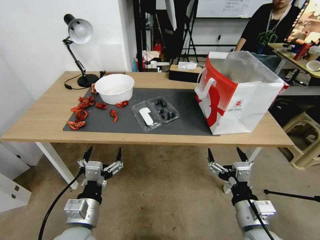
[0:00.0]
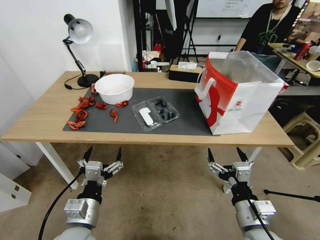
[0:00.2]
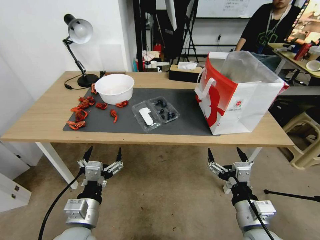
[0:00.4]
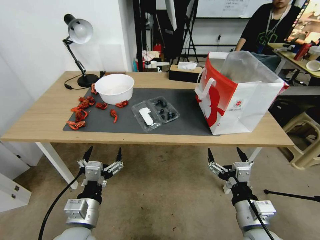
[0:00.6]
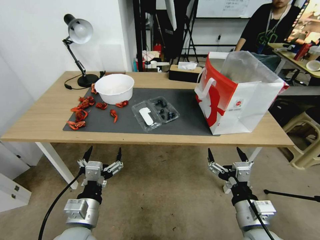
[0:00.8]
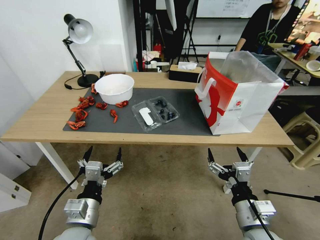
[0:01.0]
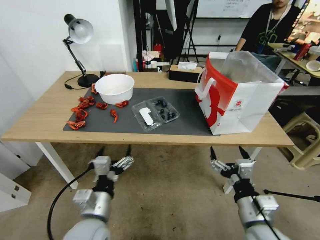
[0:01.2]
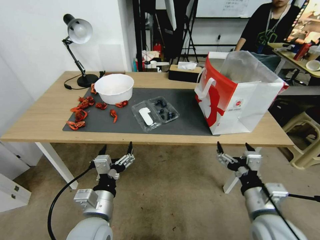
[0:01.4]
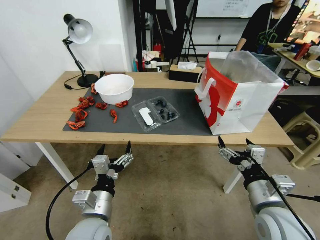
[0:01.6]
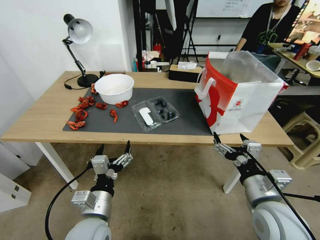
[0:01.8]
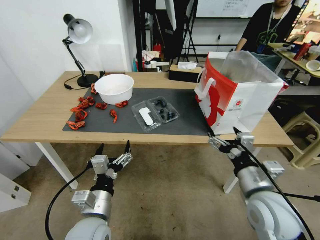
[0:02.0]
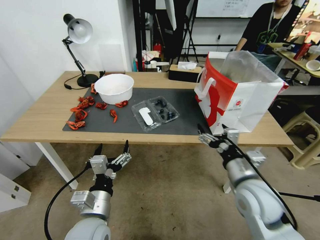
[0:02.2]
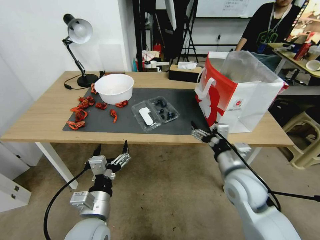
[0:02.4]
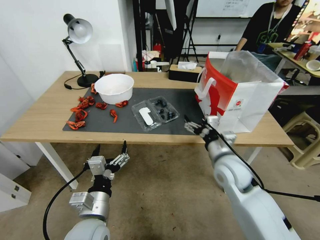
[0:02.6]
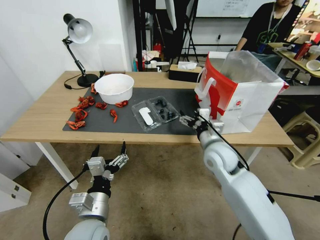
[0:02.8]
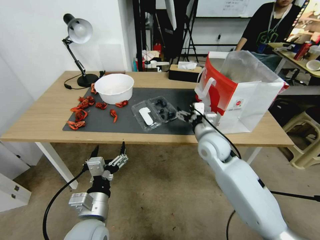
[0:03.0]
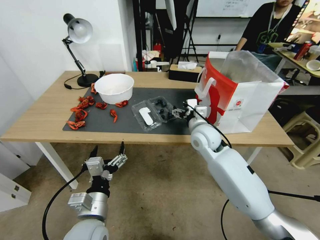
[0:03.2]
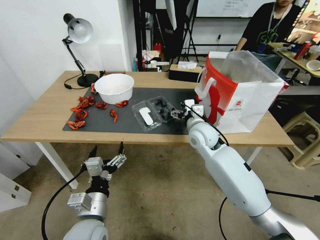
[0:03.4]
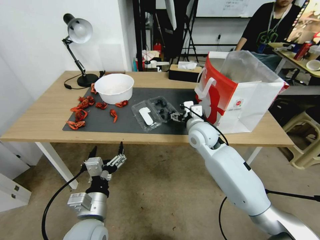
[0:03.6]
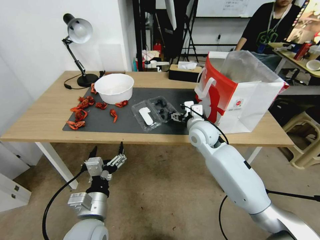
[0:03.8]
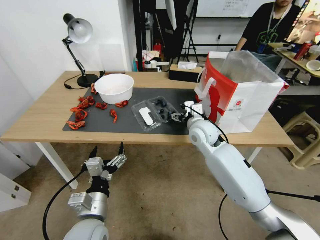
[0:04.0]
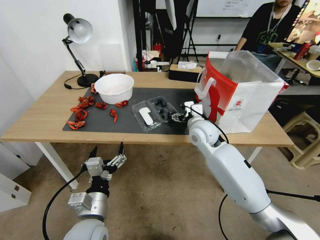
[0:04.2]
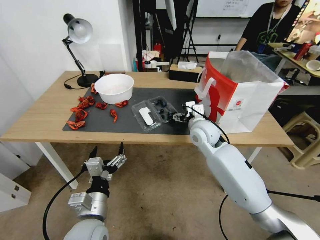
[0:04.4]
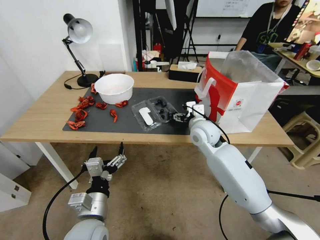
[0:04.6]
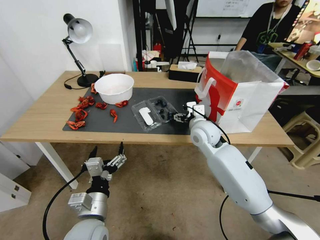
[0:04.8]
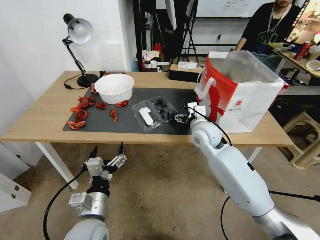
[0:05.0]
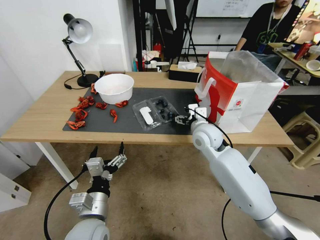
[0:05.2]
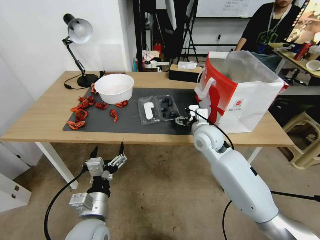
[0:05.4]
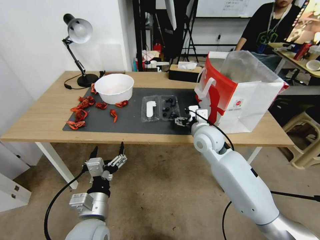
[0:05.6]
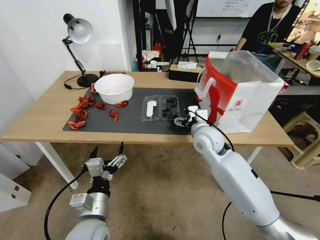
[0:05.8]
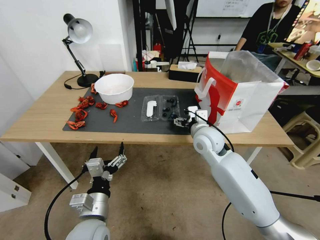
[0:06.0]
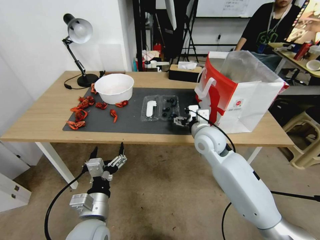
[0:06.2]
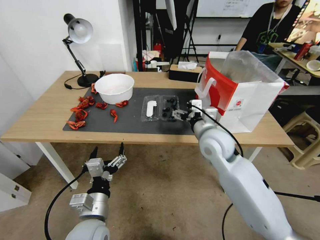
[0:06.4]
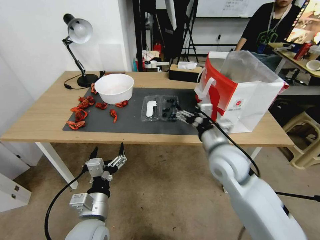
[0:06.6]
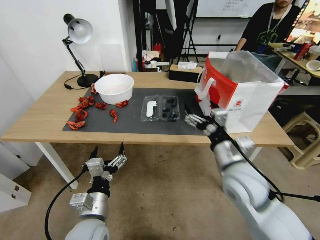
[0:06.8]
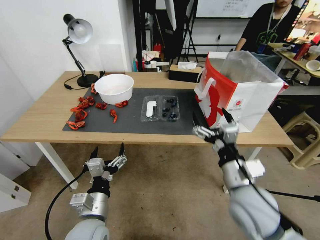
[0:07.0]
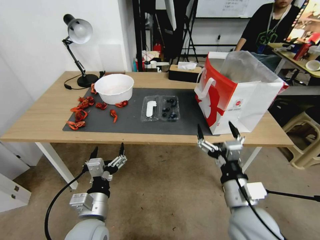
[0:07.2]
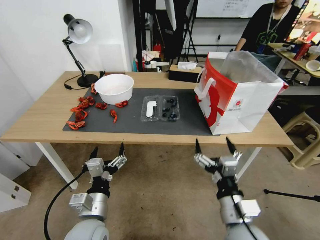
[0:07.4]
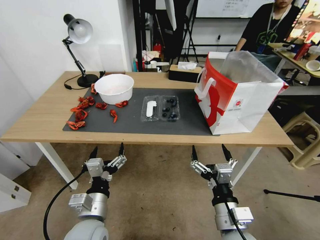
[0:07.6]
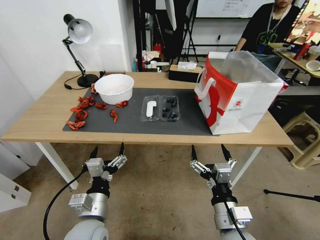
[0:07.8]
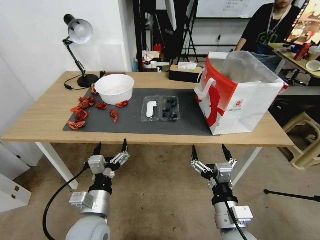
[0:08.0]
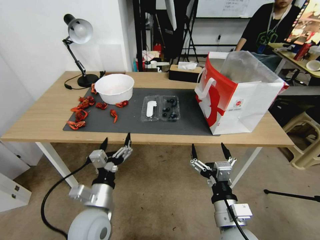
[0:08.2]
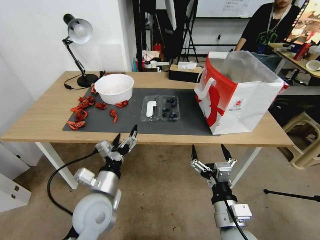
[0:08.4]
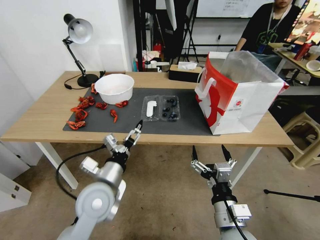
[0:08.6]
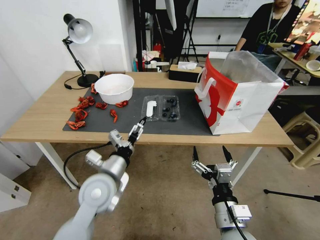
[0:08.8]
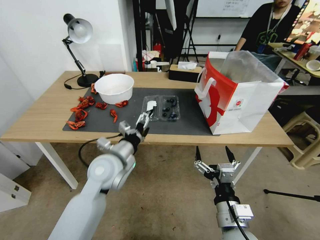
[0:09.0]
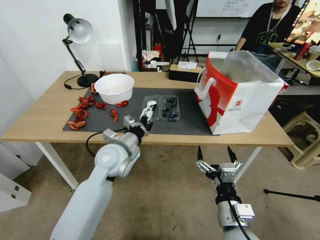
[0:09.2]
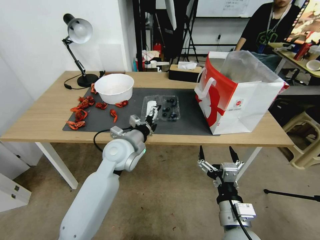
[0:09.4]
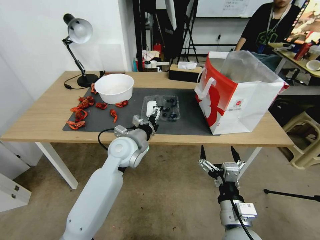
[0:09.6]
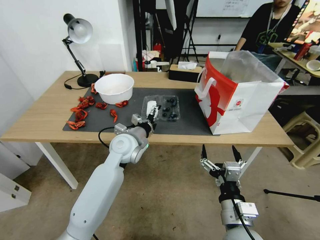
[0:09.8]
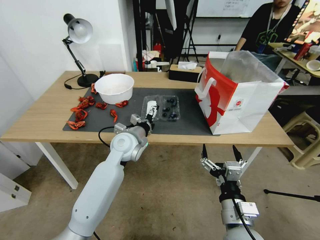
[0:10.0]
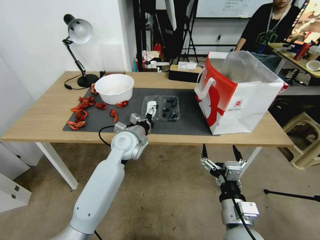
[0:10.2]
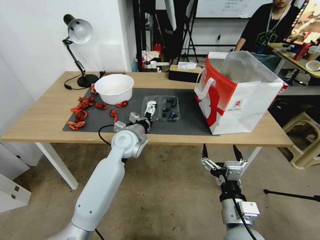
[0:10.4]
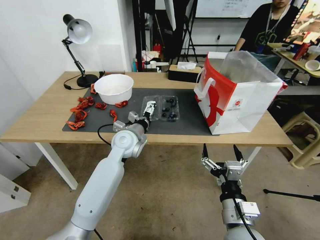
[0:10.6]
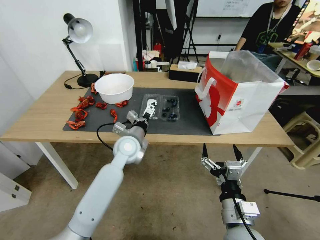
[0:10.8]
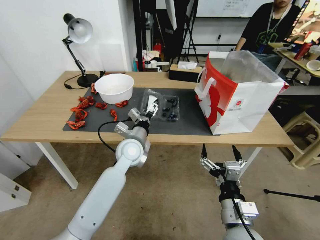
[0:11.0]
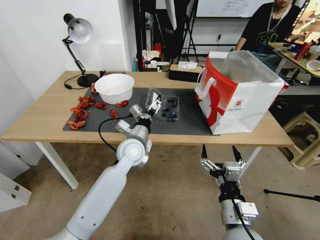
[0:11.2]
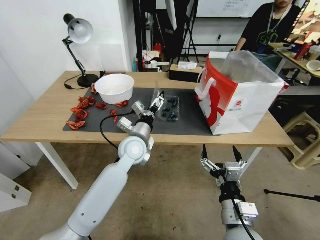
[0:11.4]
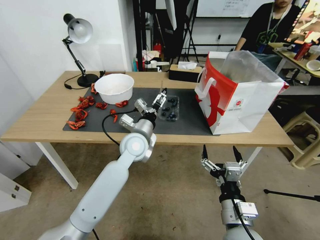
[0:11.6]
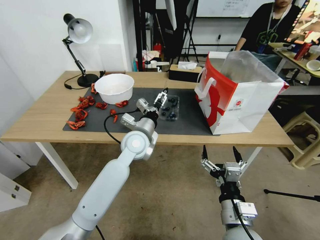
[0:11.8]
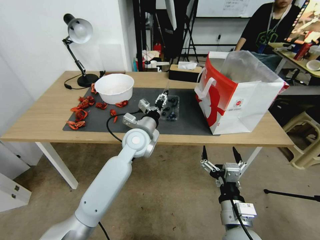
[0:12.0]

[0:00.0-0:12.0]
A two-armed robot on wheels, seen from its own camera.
Task of the whole recording: Close the takeout container lid, then place the container into the takeout bag.
0:01.6 to 0:03.0: The right gripper goes roughly 25 cm forward and to the left.
0:03.0 to 0:06.0: There are only small adjustments of the grippers.
0:06.0 to 0:07.6: The right gripper goes about 30 cm backward.
0:07.6 to 0:09.0: The left gripper shifts some 15 cm forward and upward.
0:09.0 to 0:10.4: The left gripper travels forward by some 10 cm.
0:10.4 to 0:12.0: The left gripper shifts by roughly 5 cm, and closes up.

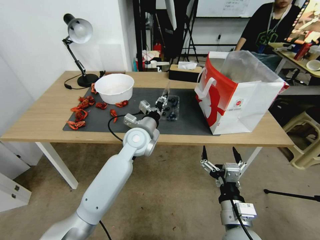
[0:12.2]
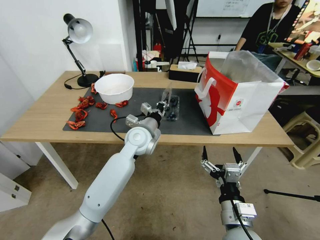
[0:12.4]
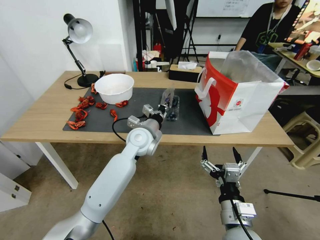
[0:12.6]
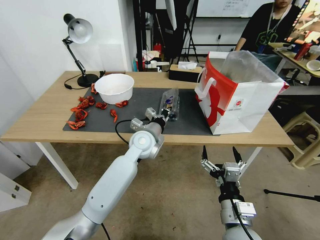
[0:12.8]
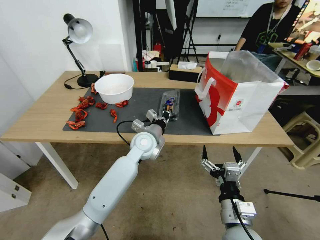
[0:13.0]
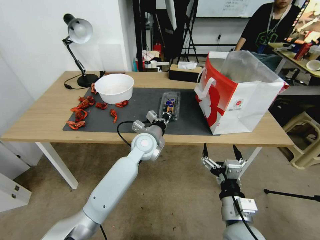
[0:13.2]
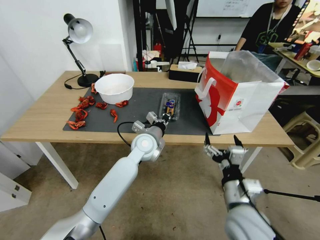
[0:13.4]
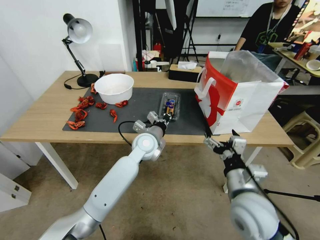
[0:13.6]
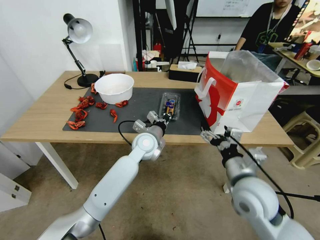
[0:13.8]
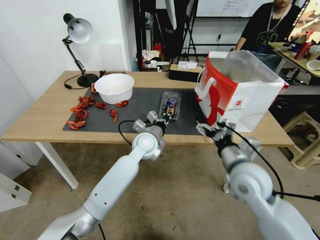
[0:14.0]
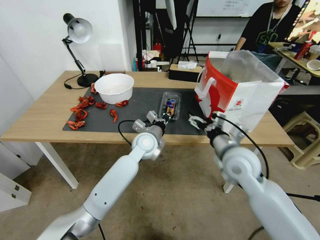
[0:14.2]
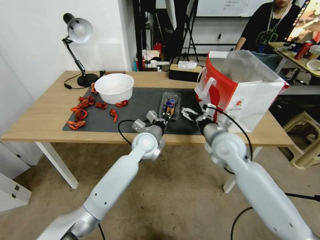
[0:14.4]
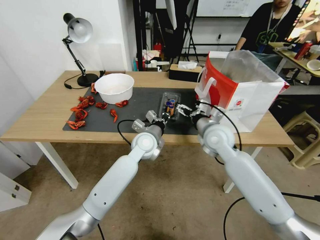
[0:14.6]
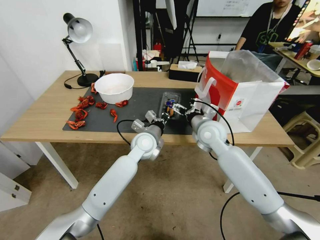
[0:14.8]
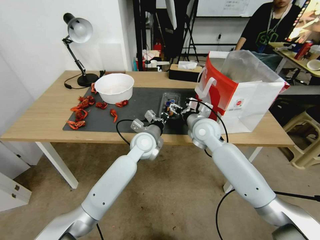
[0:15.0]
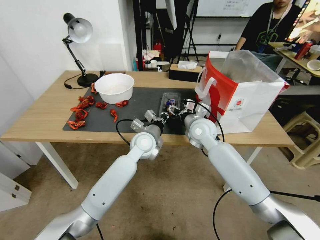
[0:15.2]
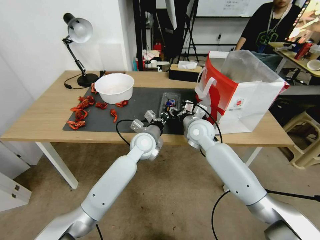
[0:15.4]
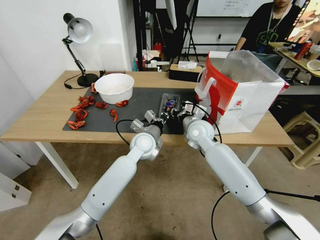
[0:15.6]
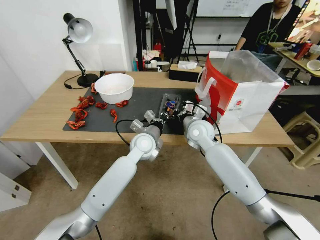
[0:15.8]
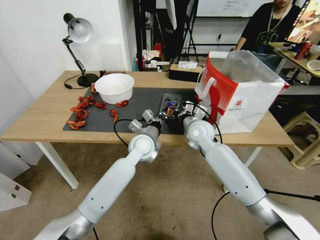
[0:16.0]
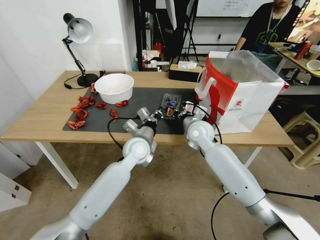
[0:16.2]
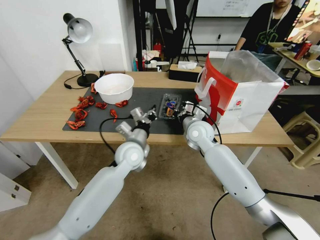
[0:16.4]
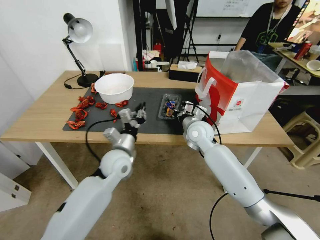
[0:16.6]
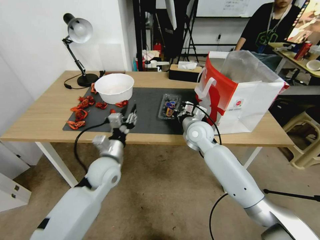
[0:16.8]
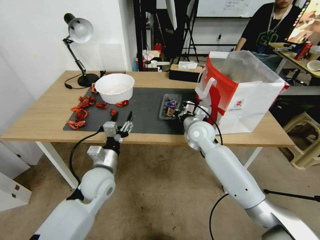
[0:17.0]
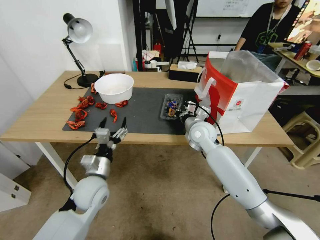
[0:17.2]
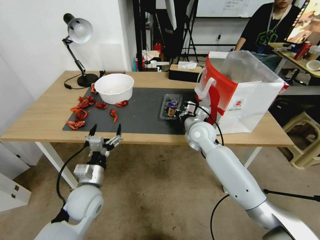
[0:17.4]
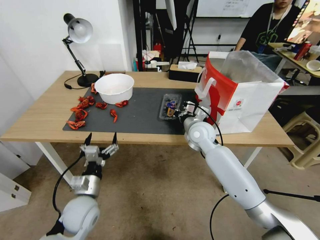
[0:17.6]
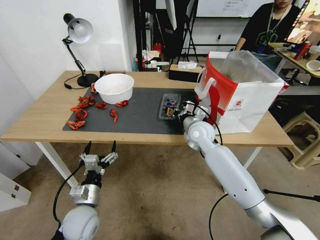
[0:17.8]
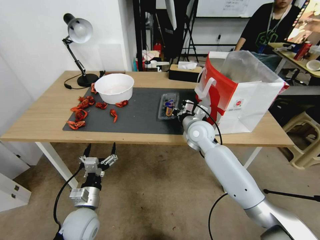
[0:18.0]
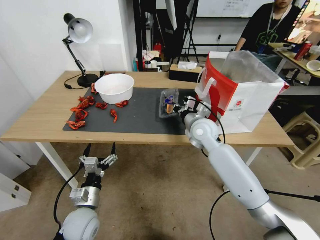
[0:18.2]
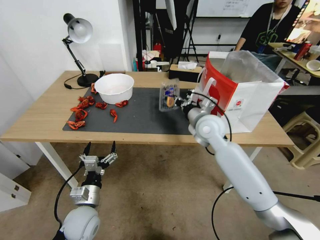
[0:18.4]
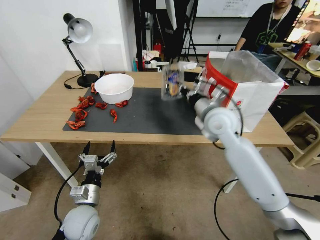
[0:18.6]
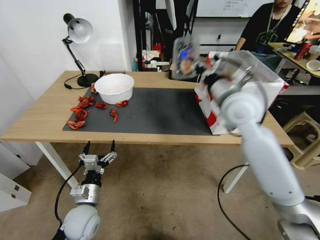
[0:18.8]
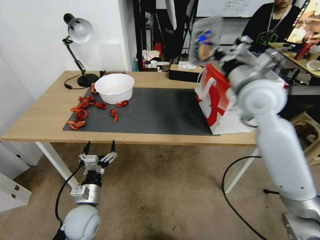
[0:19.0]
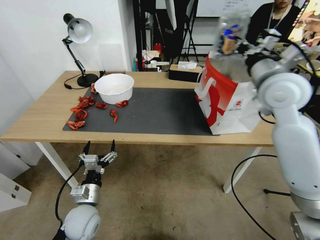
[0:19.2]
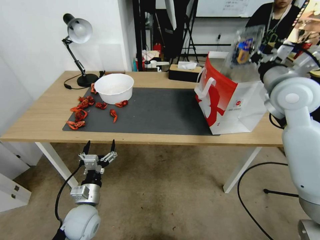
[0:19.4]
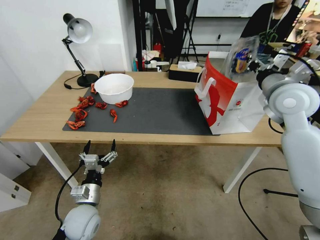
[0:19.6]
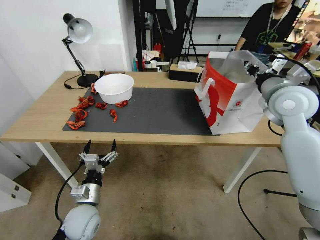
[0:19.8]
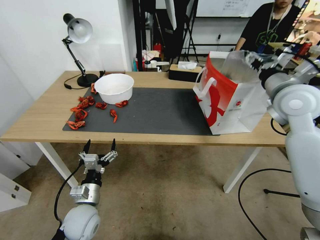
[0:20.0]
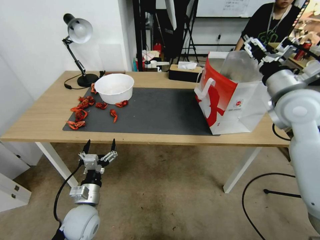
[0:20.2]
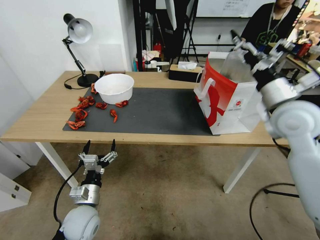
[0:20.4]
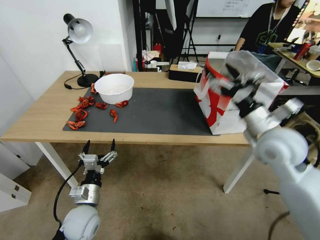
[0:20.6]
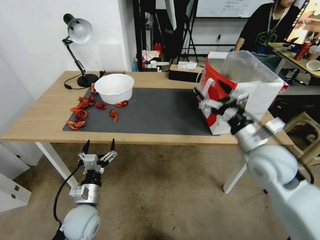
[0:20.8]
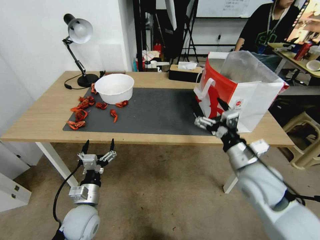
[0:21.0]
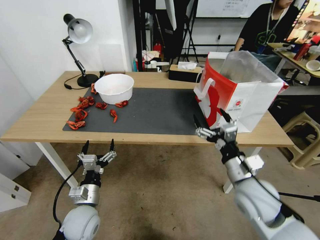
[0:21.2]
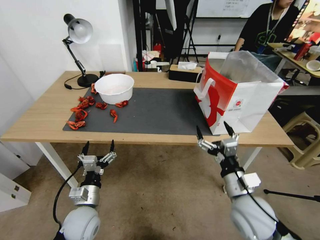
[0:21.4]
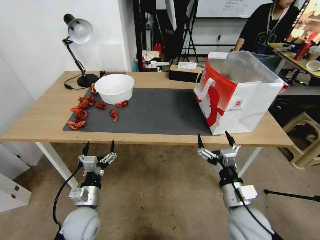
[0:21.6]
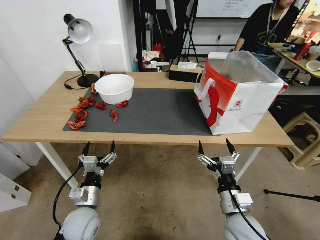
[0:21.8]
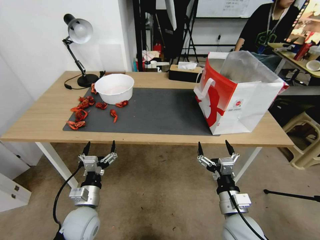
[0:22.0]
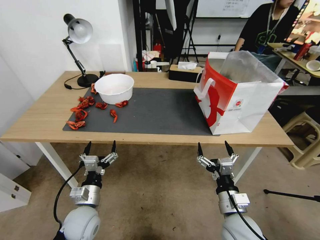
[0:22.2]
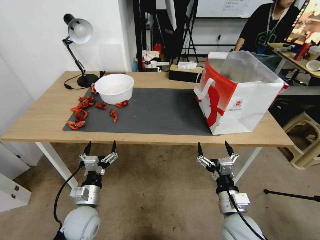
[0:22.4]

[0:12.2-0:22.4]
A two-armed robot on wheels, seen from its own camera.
Task of the whole recording: Close the takeout container lid, then place the container into the takeout bag.
0:12.2 to 0:13.6: The right gripper heads forward and upward, covering approximately 10 cm.
0:13.6 to 0:15.2: The right gripper shifts about 25 cm forward.
0:15.2 to 0:16.6: The right gripper closes up, while the left gripper travels to the left and backward by roughly 10 cm.
0:16.6 to 0:18.0: The left gripper travels backward, downward and to the left by about 20 cm, and opens up.
0:18.0 to 0:19.4: The right gripper moves upward and to the right, approximately 25 cm.
0:19.4 to 0:21.0: The right gripper heads downward, backward and to the left, covering about 25 cm, and opens its fingers.
0:21.0 to 0:22.4: The right gripper shifts about 15 cm downward and backward.
